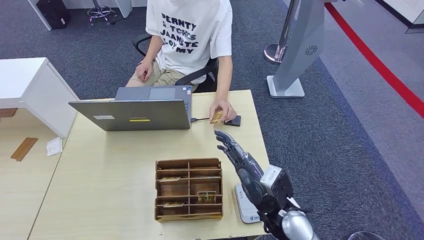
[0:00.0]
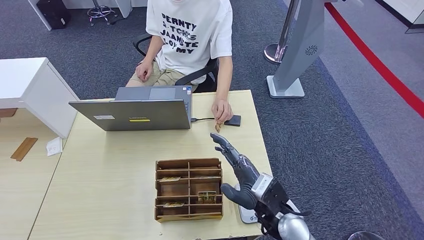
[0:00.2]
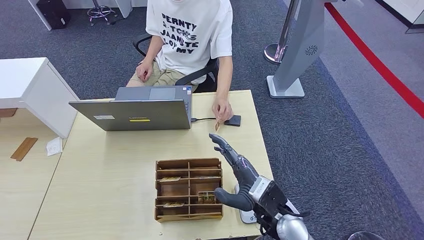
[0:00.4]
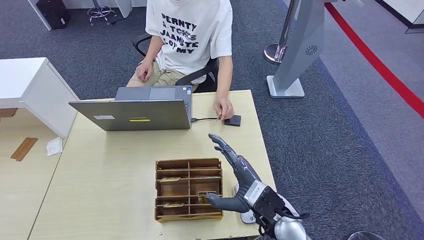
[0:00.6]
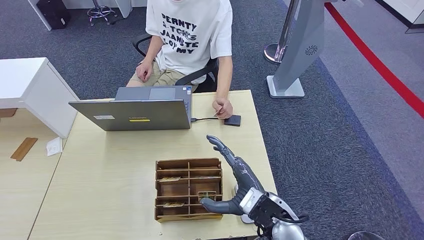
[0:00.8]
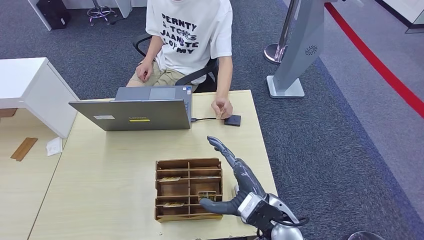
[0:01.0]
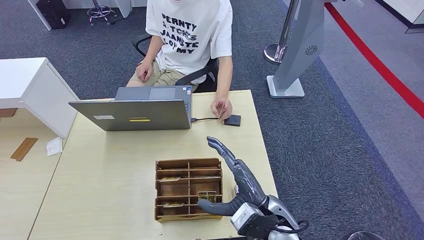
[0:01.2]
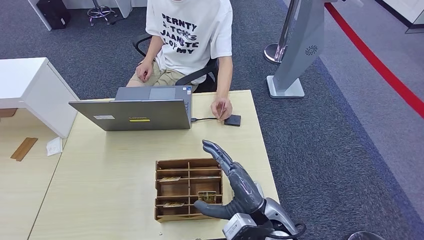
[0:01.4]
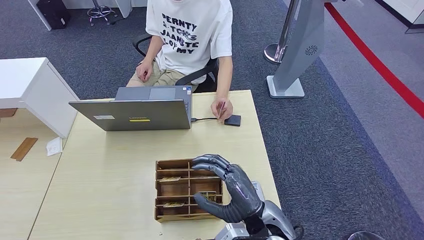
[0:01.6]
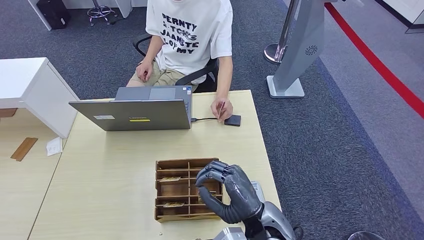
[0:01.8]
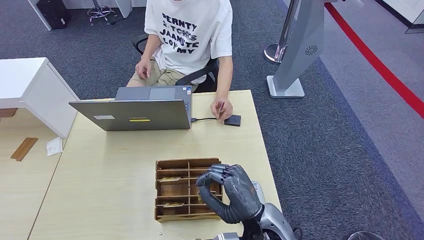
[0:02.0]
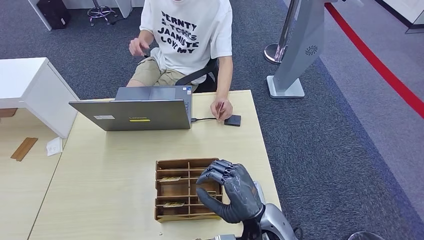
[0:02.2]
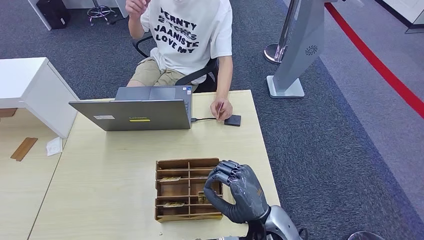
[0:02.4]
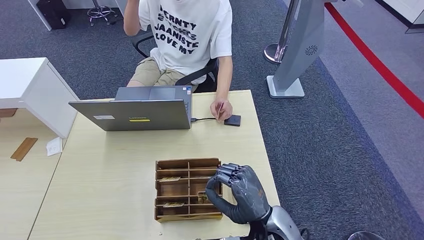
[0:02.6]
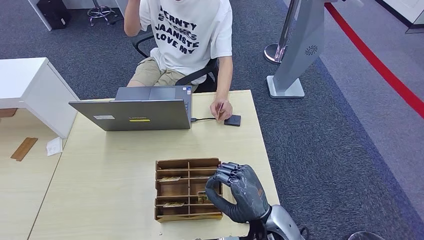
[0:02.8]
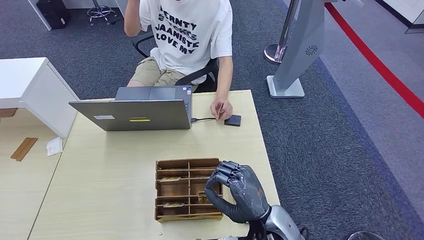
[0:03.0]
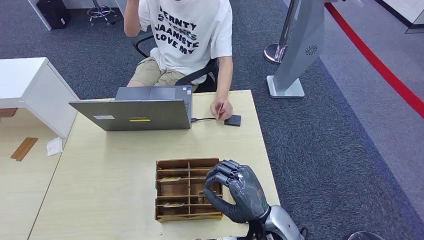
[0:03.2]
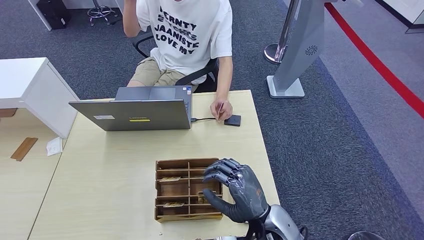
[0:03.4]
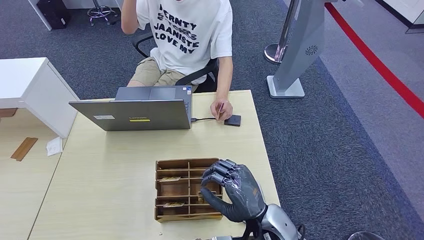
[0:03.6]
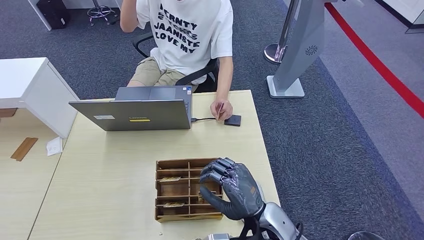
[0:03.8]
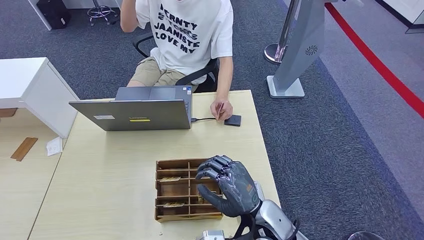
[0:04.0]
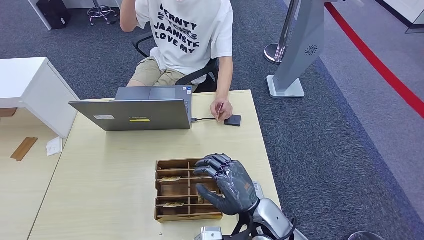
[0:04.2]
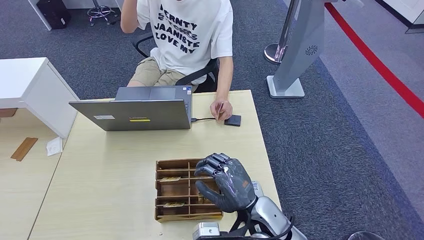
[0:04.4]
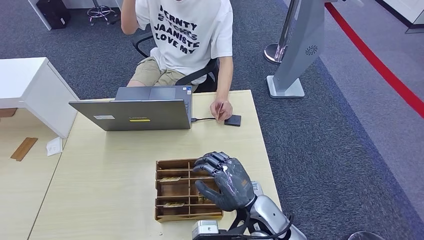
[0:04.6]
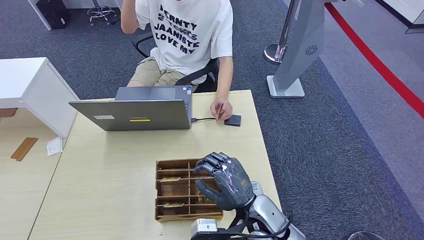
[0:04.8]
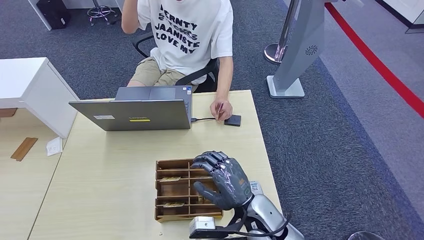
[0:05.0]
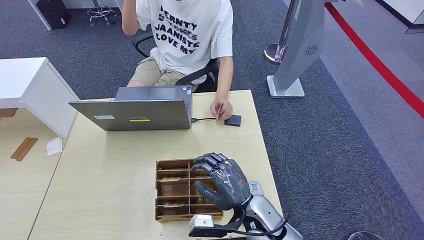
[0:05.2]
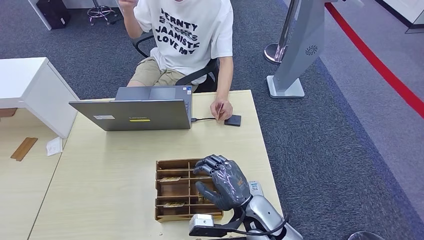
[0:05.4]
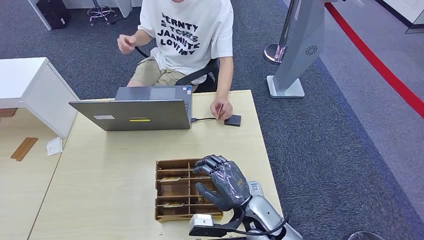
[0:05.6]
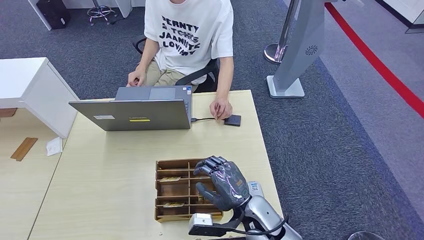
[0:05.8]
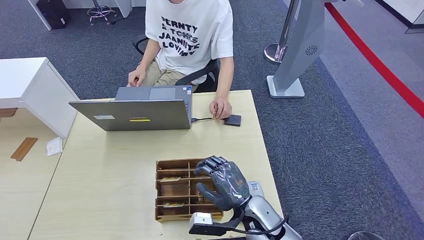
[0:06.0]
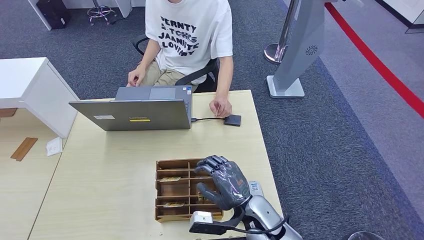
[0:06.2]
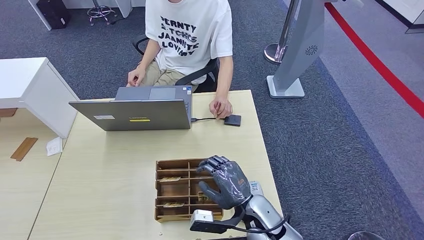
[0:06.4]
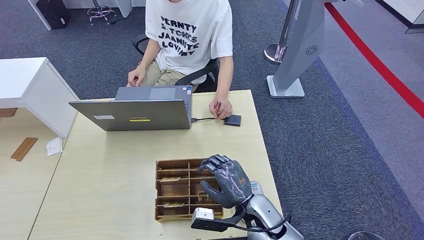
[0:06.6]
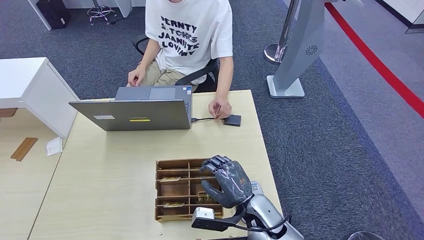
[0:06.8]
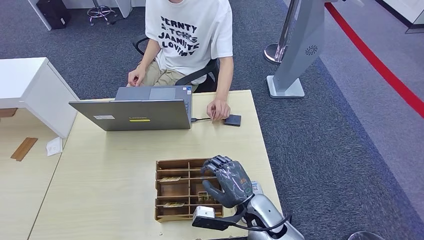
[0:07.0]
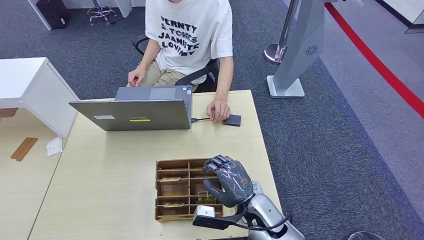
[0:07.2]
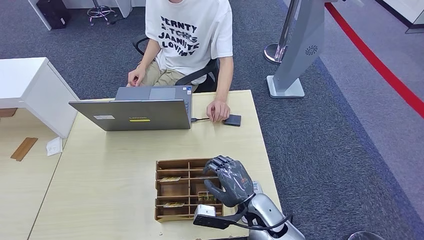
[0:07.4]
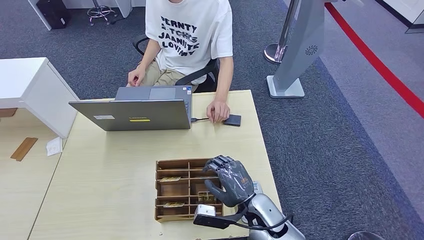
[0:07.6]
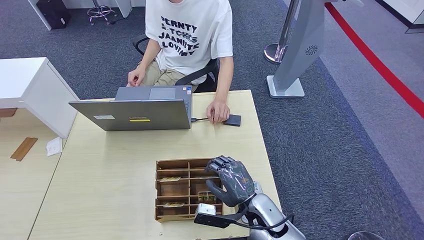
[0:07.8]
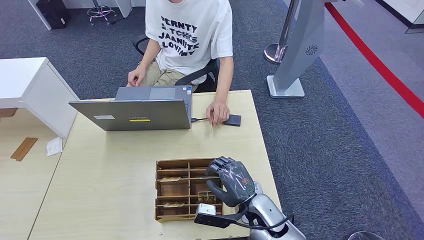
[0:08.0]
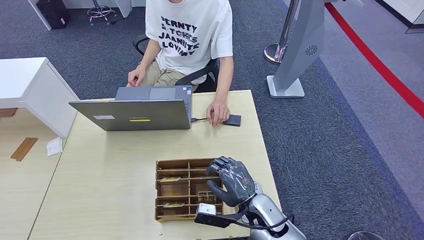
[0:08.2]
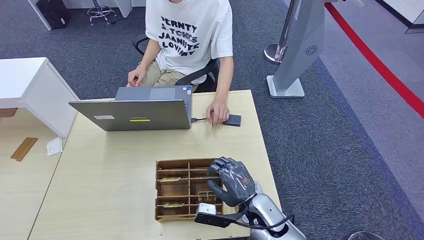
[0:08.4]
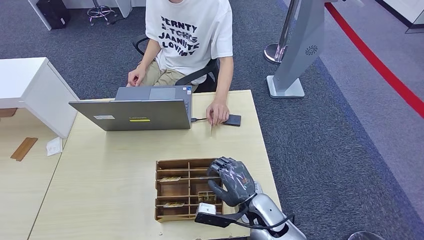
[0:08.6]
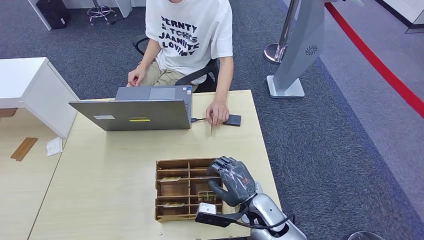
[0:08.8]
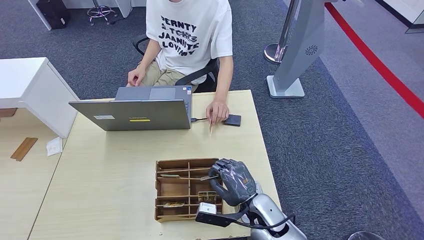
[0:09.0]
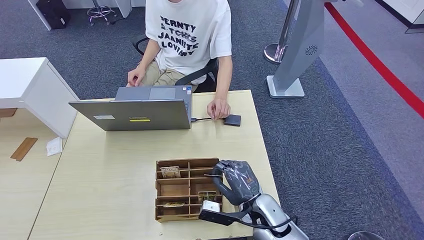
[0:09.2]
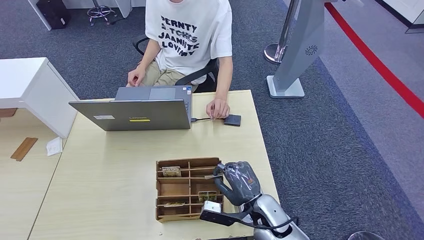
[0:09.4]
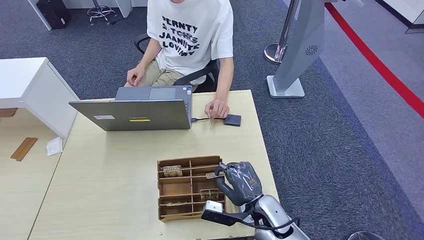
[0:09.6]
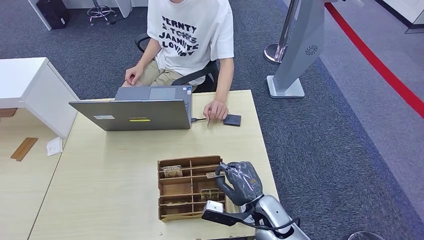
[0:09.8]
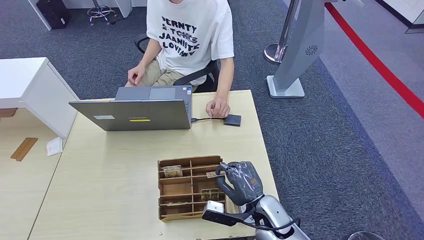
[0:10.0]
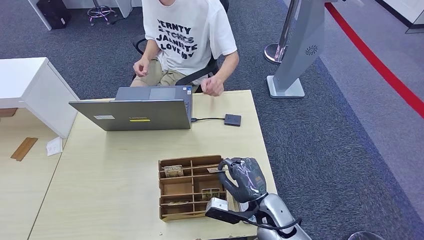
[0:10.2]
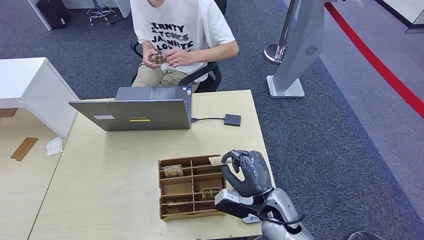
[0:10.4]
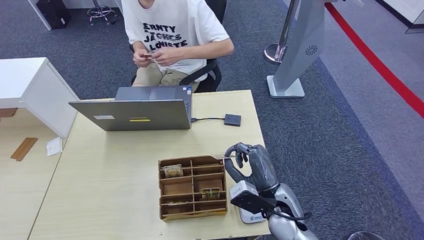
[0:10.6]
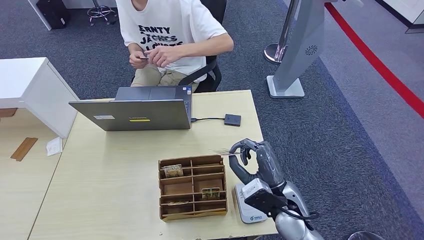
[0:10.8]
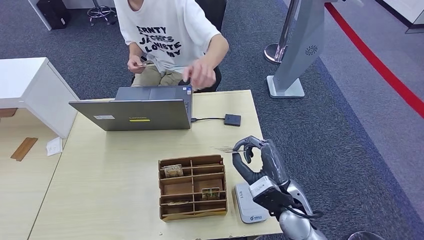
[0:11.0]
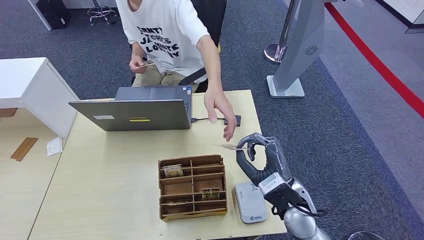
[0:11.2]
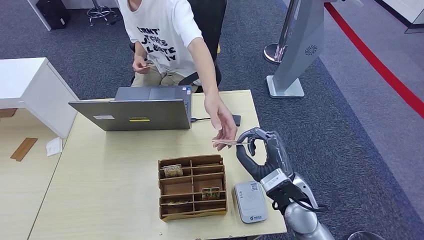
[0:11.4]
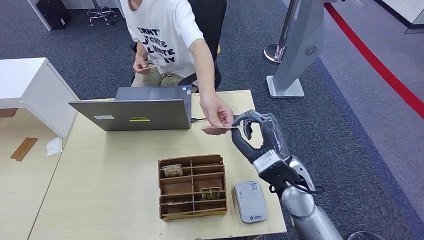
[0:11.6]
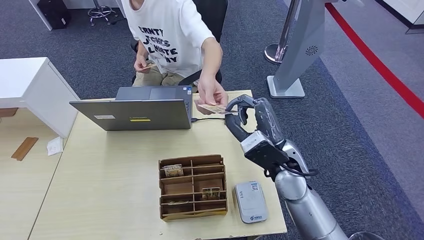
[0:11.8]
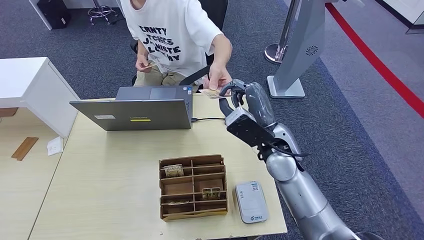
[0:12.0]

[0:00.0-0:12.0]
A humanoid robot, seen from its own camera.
Step, 0:00.0 to 0:10.2: Pick up the room key from the key card box.
0:03.0 to 0:06.0: There are only small adjustments of the hands.
0:06.0 to 0:07.6: There are only small adjustments of the hands.
0:07.6 to 0:09.0: Neither hand changes place.
0:09.0 to 0:10.4: There are only small adjustments of the hands.
0:10.4 to 0:12.0: The right hand is displaced upward and forward by approximately 15 cm.

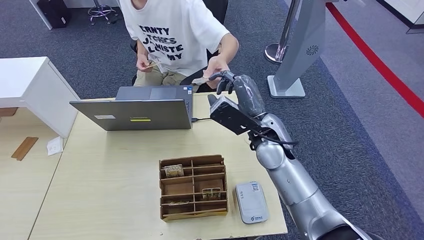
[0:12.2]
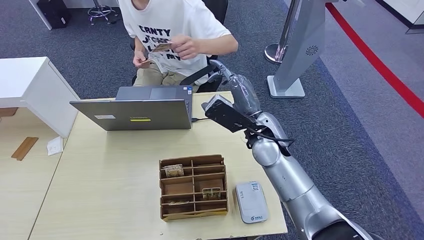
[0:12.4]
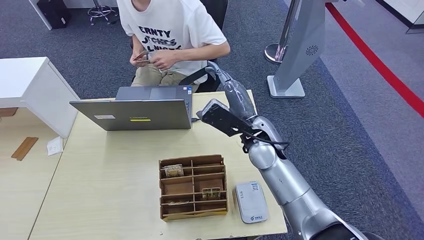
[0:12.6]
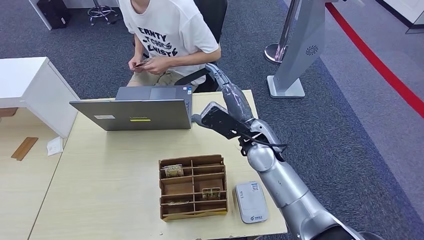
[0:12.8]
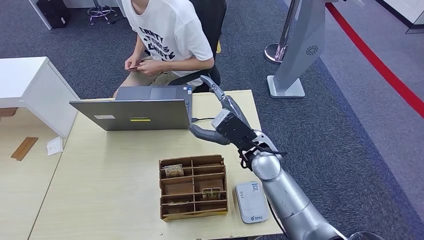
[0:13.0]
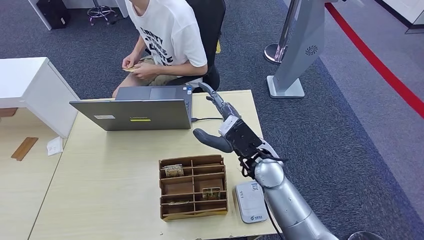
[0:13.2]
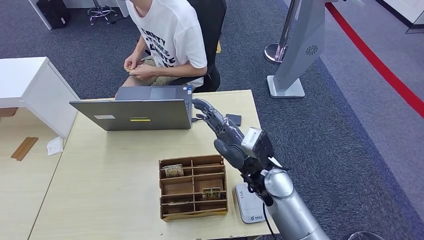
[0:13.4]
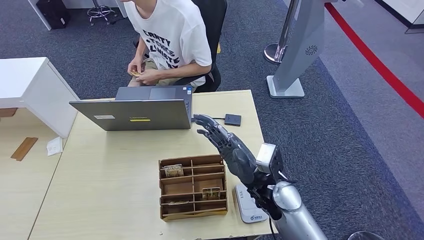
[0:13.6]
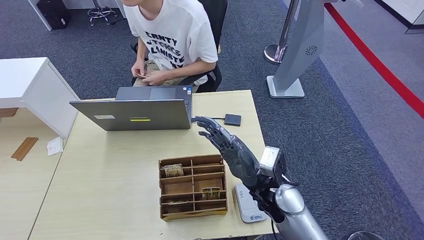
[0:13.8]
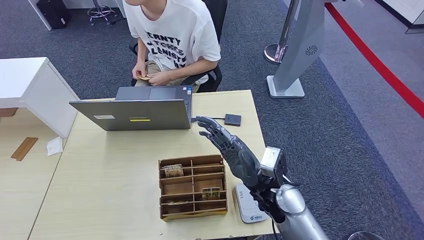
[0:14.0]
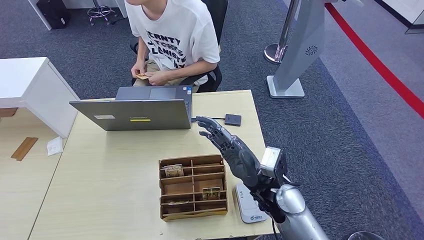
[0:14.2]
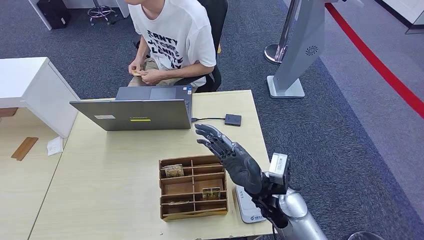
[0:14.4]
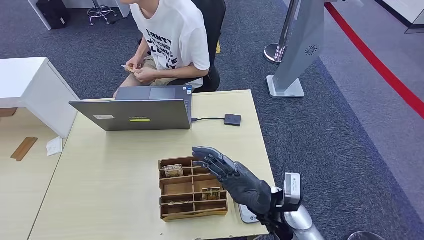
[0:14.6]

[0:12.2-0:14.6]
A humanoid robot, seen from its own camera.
Step, 0:12.2 to 0:14.4: Hand the room key to the person.
0:12.2 to 0:13.4: The right hand shifts some 5 cm backward.
0:13.4 to 0:14.6: The right hand goes some 5 cm backward.
